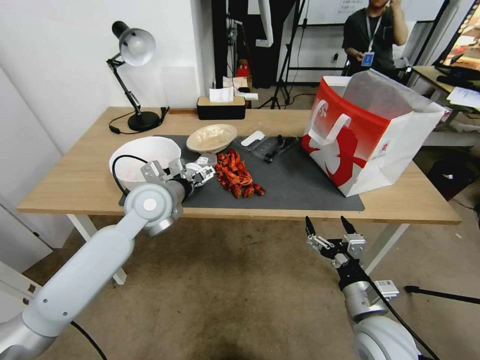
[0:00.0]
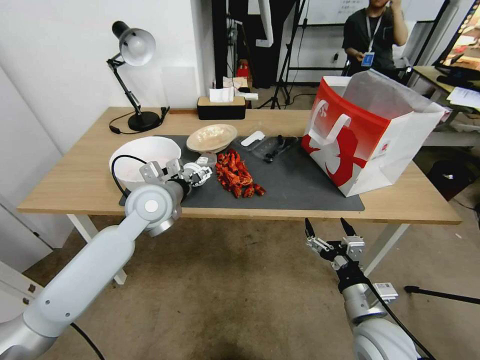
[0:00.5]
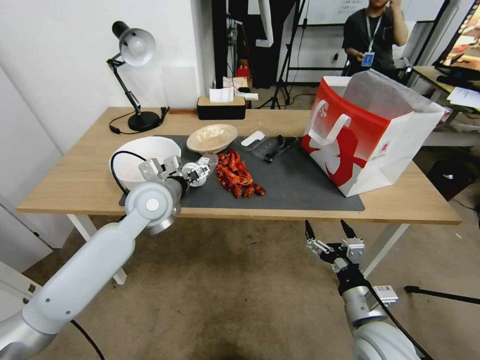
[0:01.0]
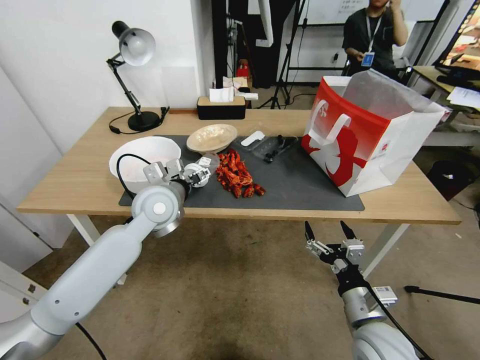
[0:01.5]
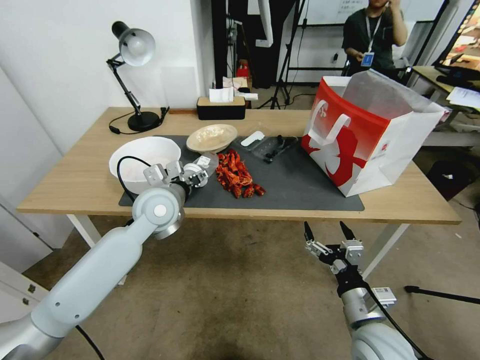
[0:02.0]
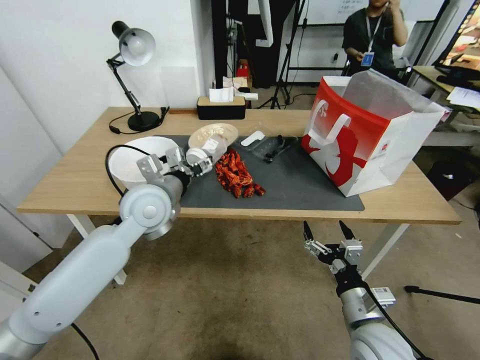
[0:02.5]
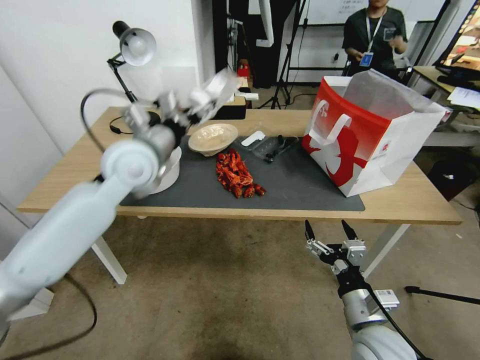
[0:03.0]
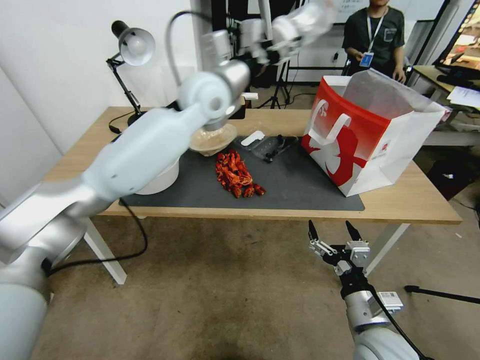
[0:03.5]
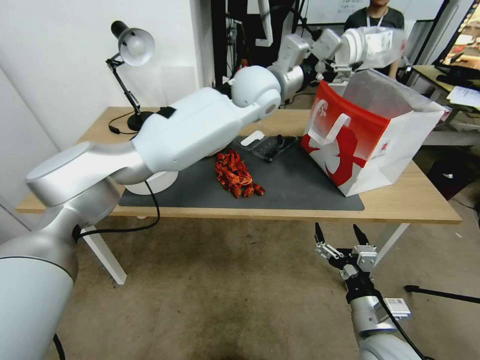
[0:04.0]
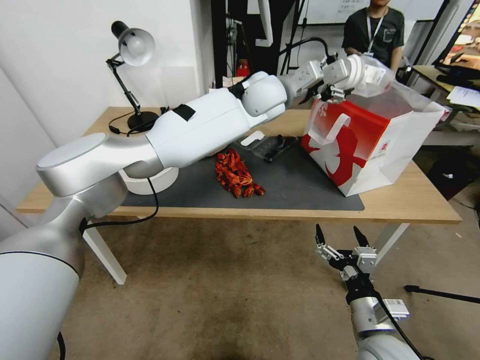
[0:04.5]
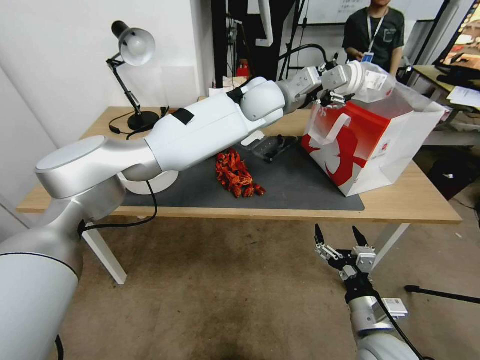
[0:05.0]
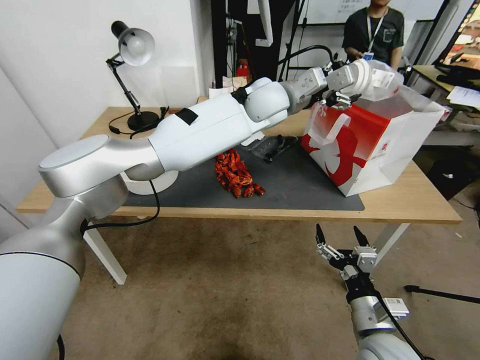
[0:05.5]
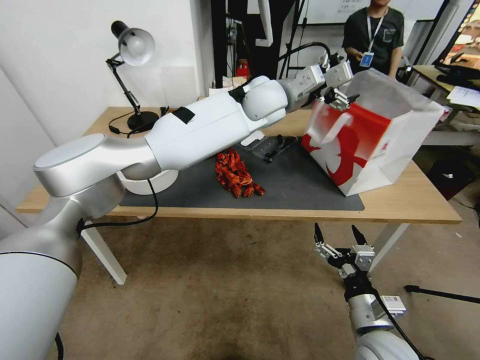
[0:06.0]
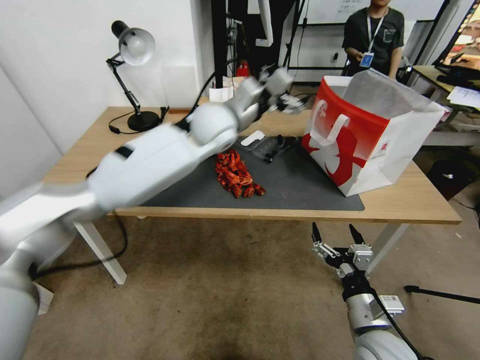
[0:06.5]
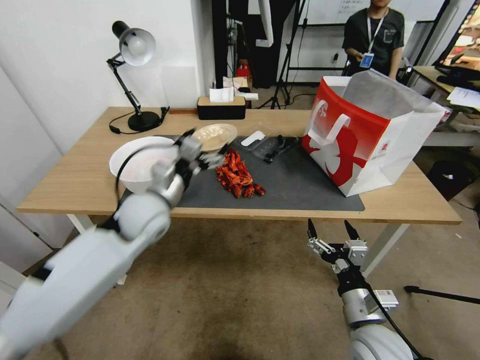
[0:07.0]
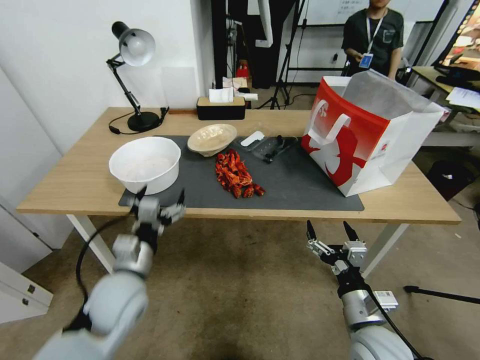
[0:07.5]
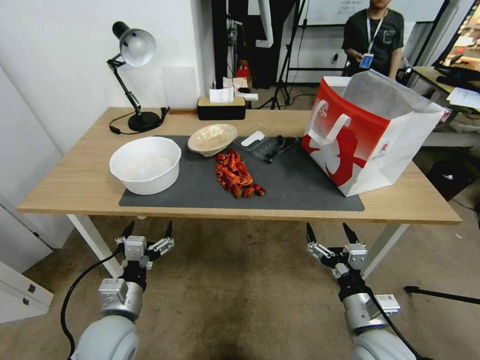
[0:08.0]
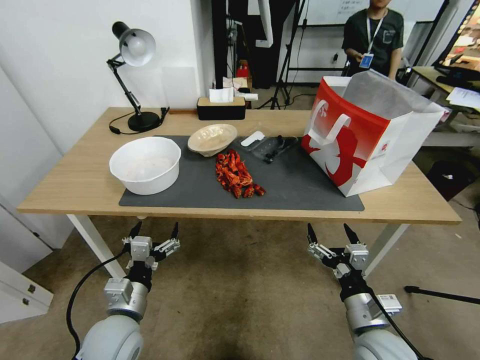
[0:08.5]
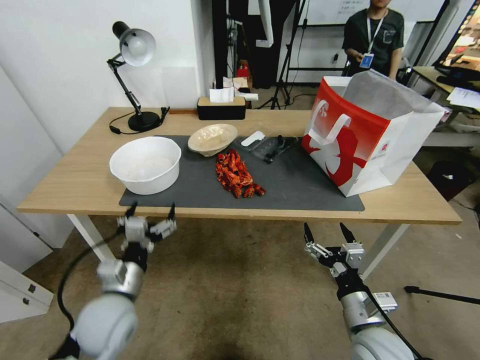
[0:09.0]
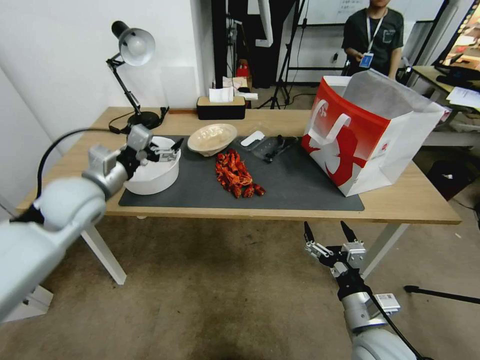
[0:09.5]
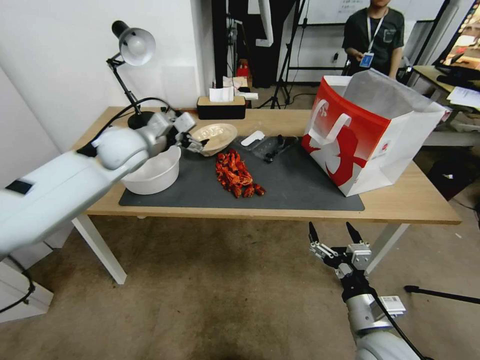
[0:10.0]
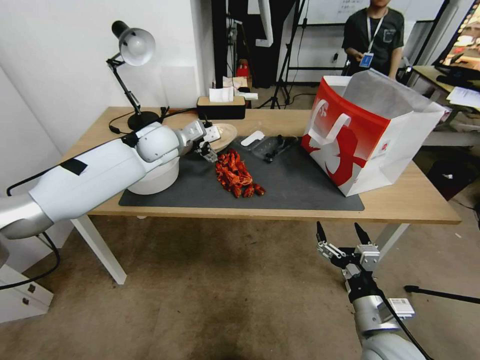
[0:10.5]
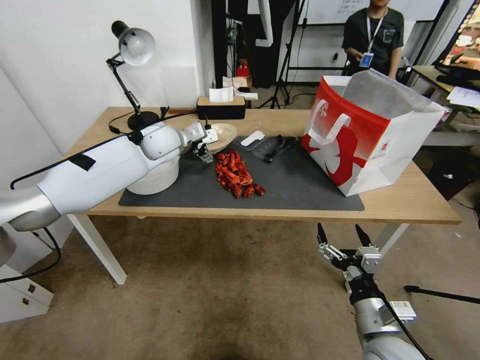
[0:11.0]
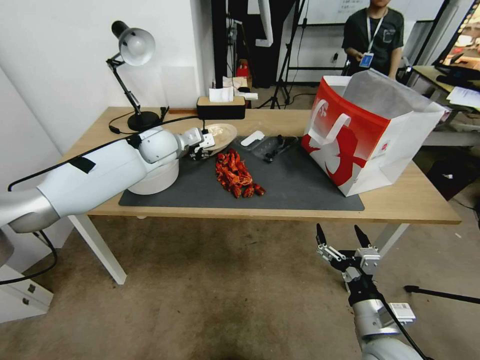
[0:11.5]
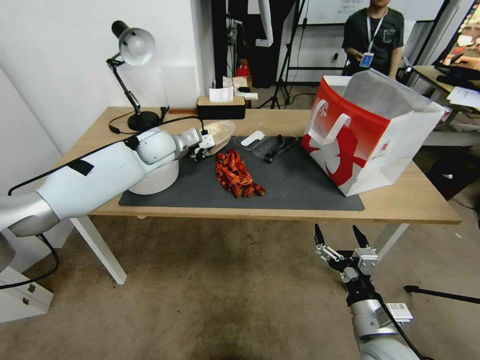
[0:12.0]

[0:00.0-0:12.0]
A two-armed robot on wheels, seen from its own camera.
0:00.0 to 0:02.0: The grippers move only a little.
0:02.0 to 0:04.0: The left gripper heads to the right, upward and forward, covering approximately 30 cm.
0:06.0 to 0:08.0: The left gripper is displaced backward, downward and to the left by approximately 60 cm.
0:08.0 to 0:10.0: The left gripper is displaced forward and upward by about 40 cm.
0:10.0 to 0:12.0: The left gripper moves forward, approximately 5 cm, and closes.

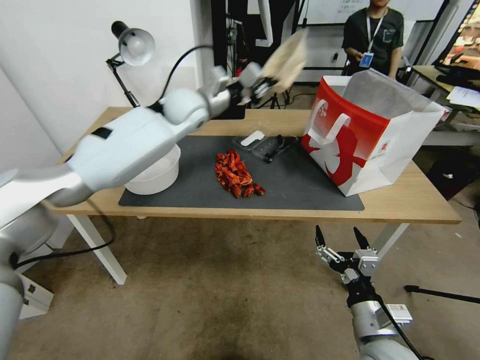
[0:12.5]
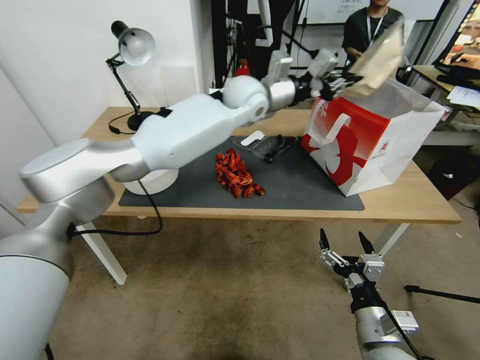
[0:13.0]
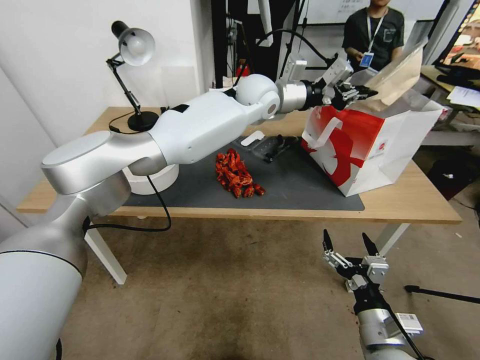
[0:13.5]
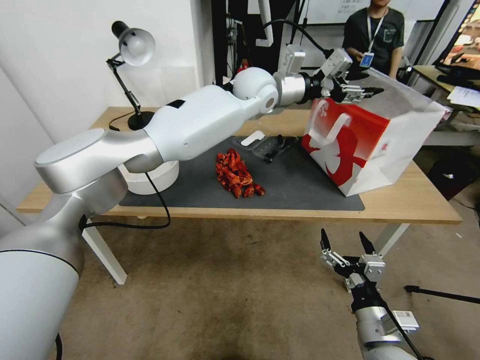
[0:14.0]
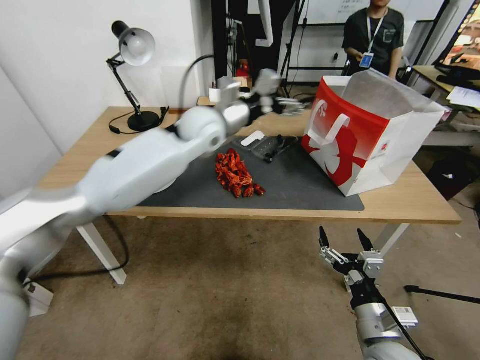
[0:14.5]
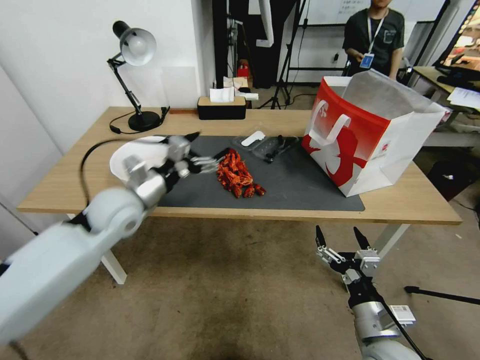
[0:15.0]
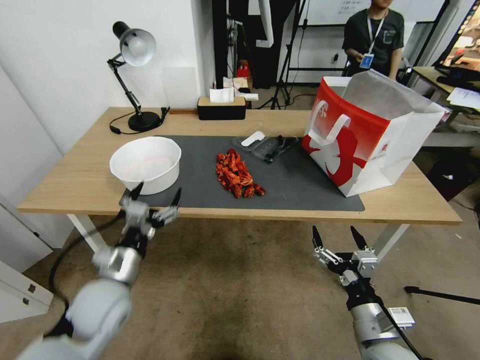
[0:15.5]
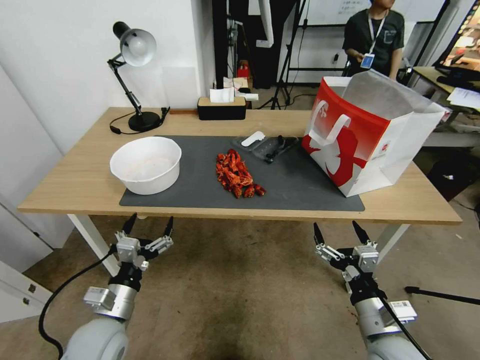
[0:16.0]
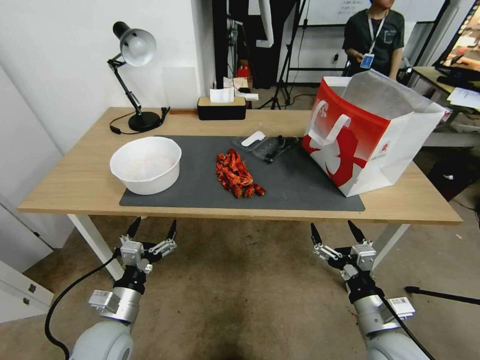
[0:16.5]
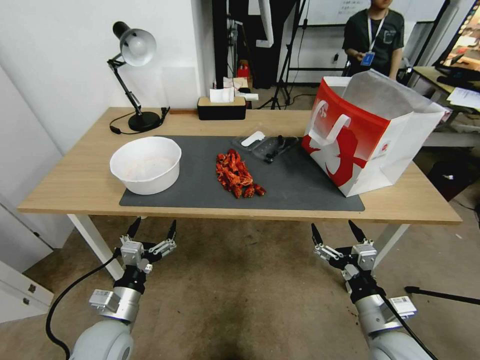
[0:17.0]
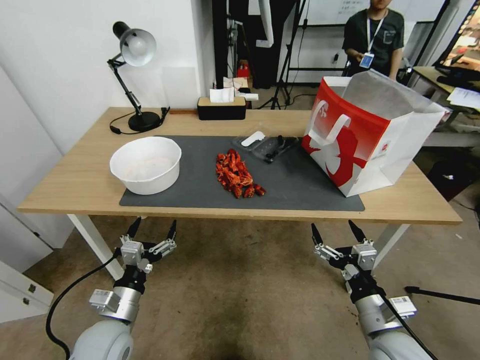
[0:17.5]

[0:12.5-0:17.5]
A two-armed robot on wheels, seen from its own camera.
0:12.5 to 0:15.0: The left gripper travels backward, to the left and downward by about 25 cm, and opens its fingers.
0:15.0 to 0:17.5: The left gripper shifts some 25 cm backward and downward.

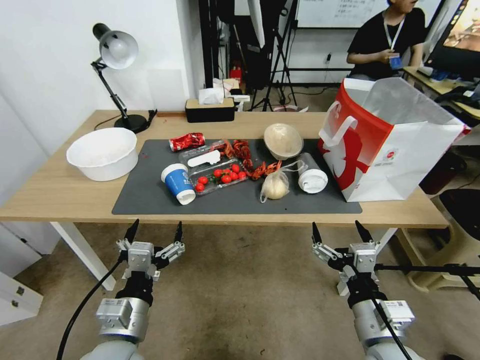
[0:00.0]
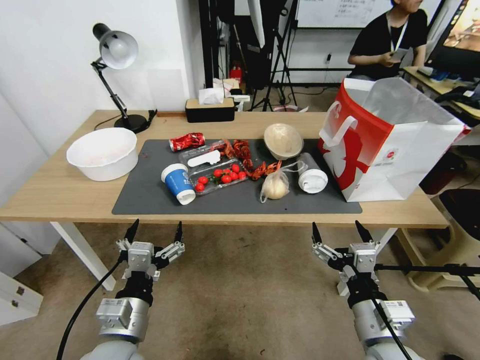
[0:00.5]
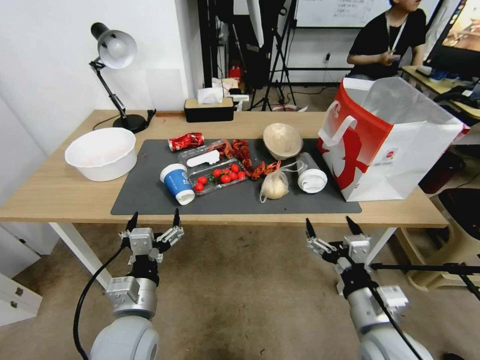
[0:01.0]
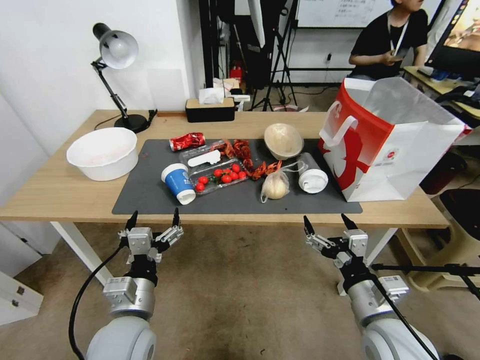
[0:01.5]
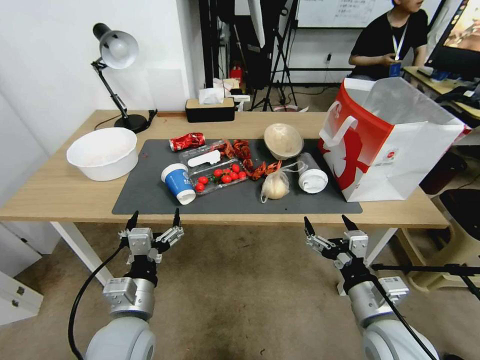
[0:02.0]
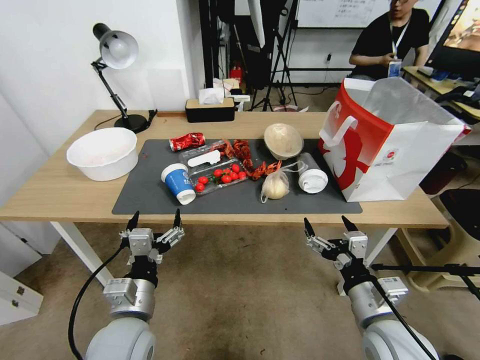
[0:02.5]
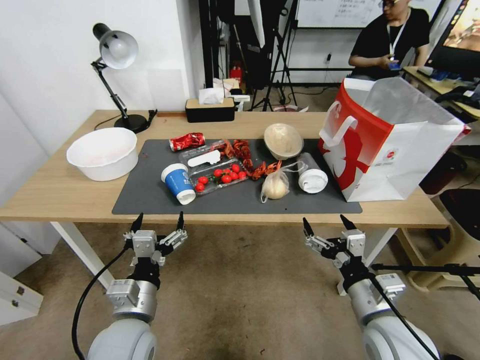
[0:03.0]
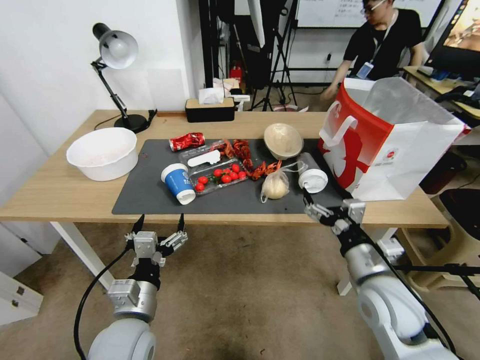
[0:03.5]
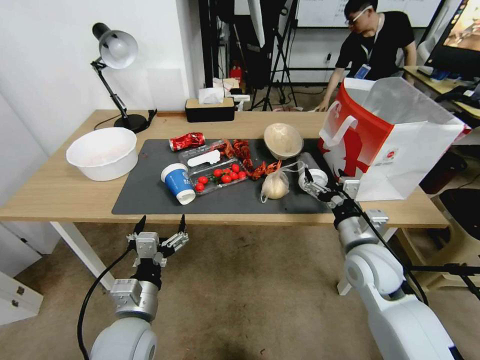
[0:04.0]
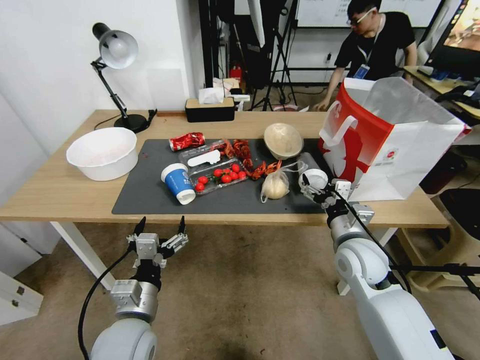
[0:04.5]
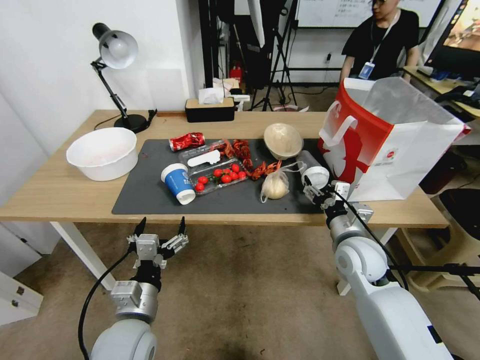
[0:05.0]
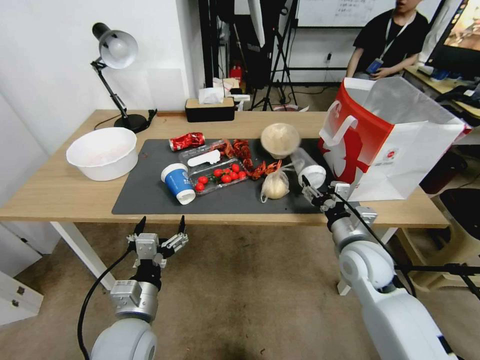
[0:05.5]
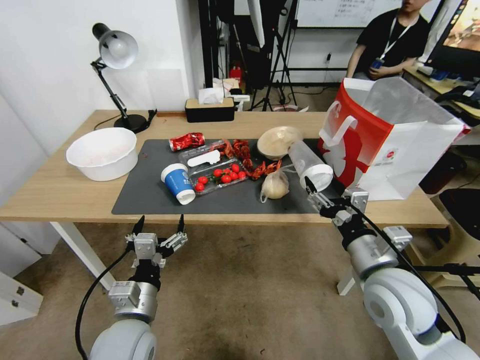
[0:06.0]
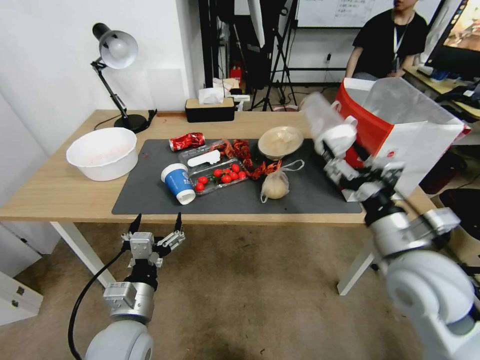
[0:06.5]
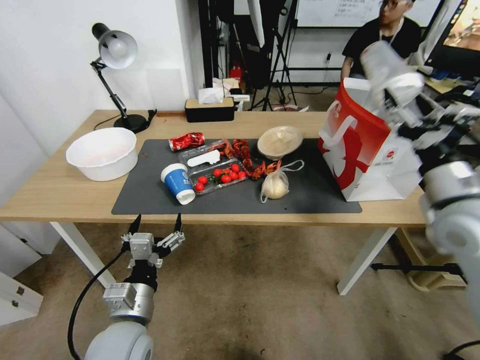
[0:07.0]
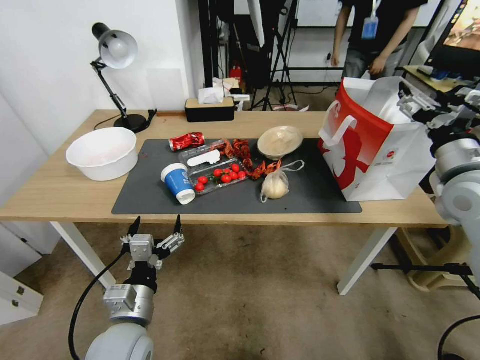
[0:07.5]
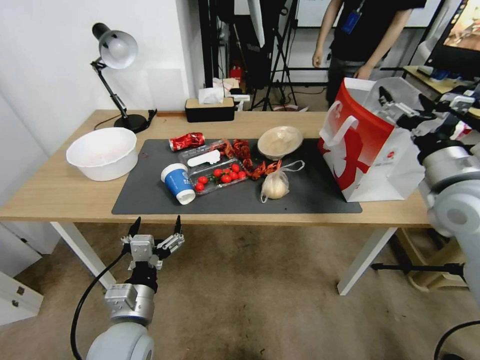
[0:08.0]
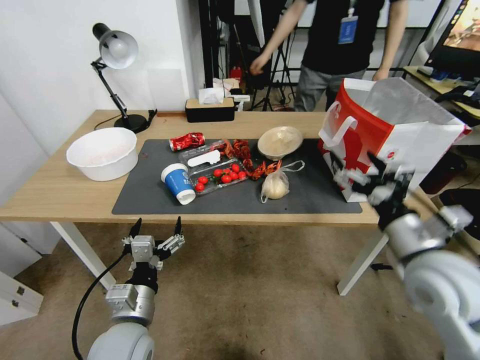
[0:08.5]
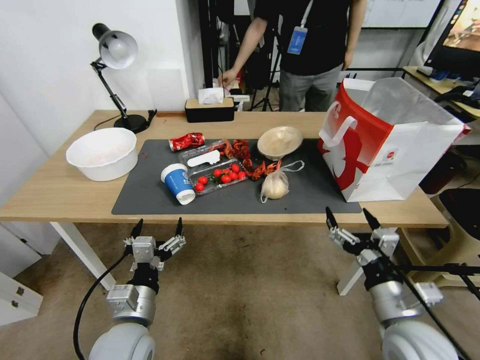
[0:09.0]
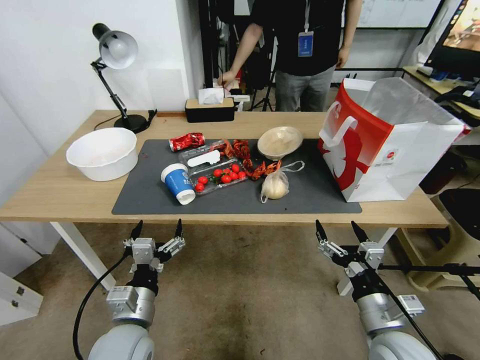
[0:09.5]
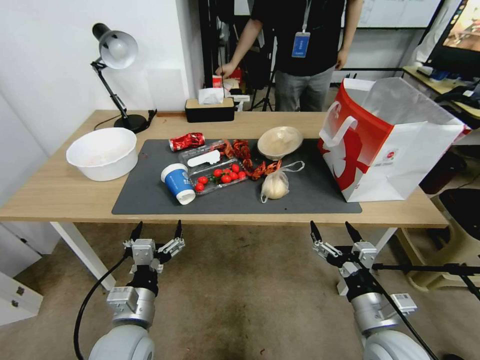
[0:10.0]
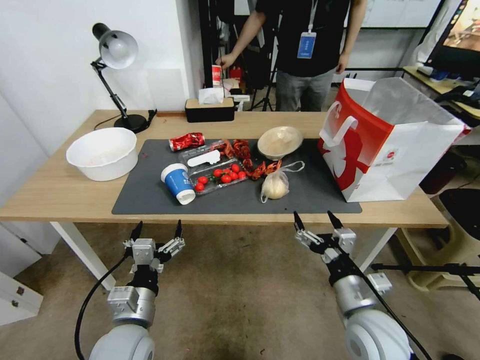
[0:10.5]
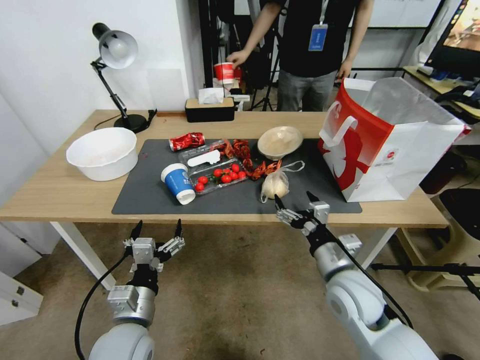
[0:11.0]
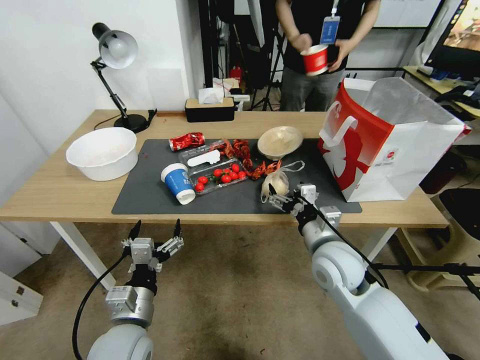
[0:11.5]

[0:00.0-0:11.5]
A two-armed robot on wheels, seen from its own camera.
0:02.0 to 0:04.0: The right gripper travels forward by roughly 15 cm.
0:04.0 to 0:06.0: The right gripper ends up about 5 cm from where it was.
0:06.0 to 0:07.5: The right gripper moves upward, to the right and forward, approximately 20 cm.
0:07.5 to 0:09.5: The right gripper is displaced downward, backward and to the left by roughly 30 cm.
0:09.5 to 0:11.5: The right gripper travels forward and to the left by approximately 15 cm.
